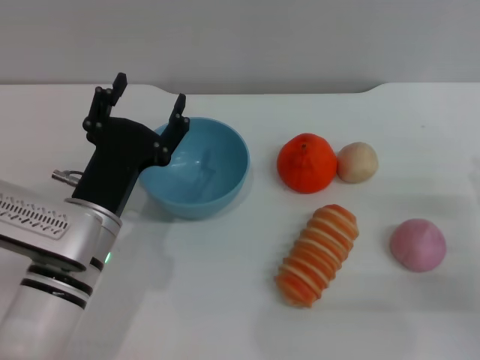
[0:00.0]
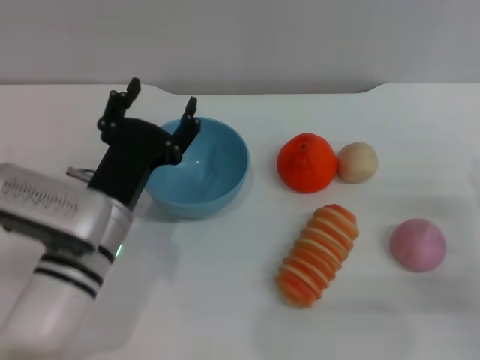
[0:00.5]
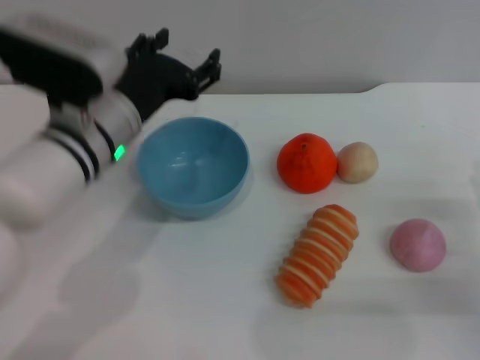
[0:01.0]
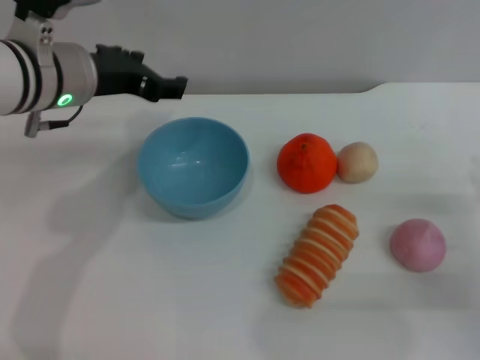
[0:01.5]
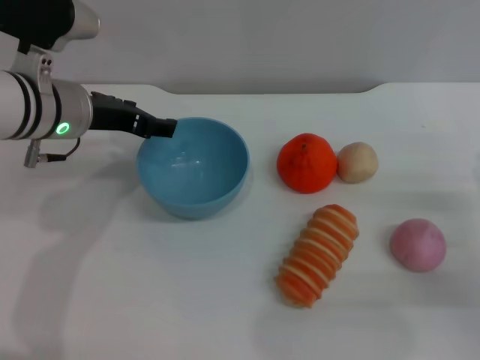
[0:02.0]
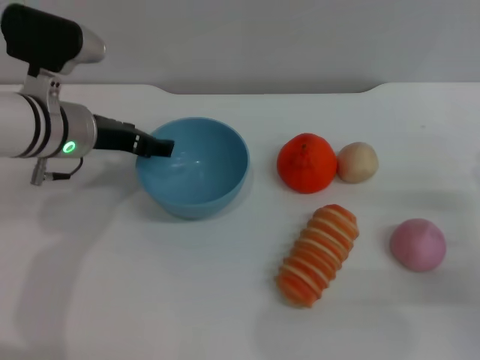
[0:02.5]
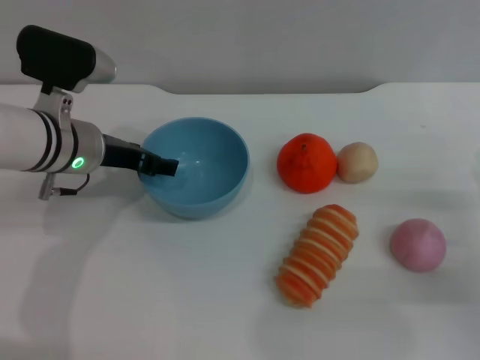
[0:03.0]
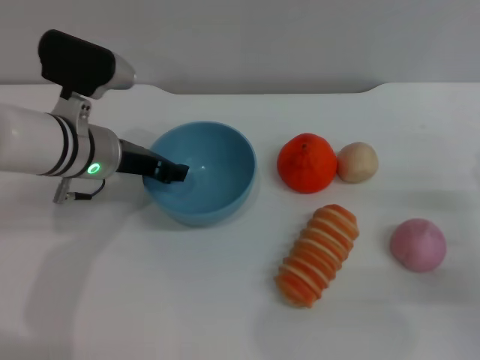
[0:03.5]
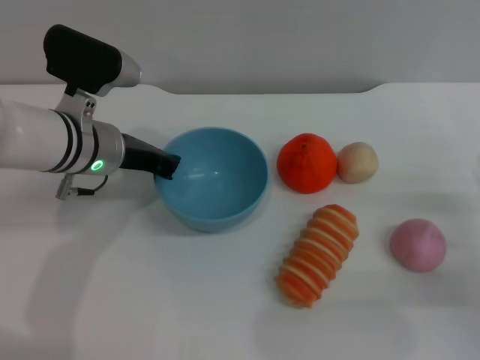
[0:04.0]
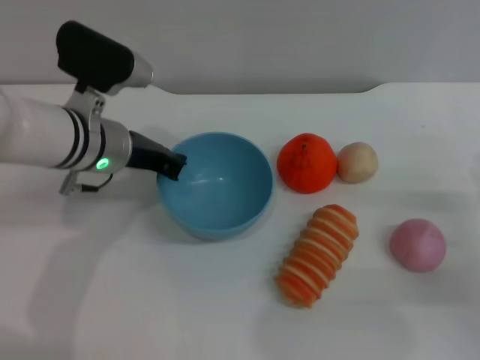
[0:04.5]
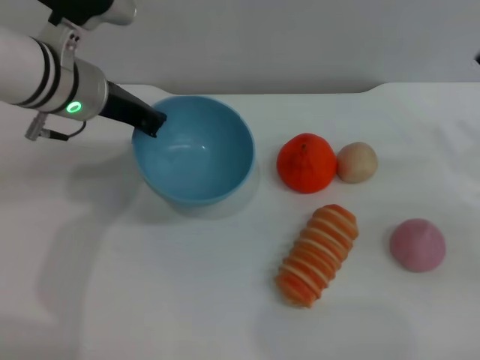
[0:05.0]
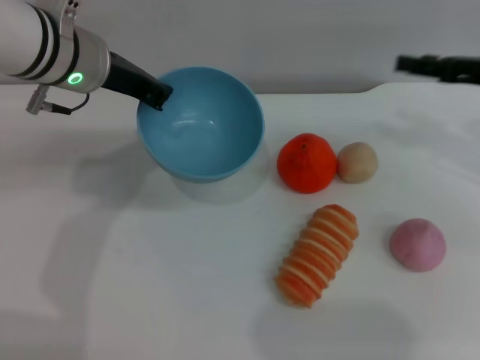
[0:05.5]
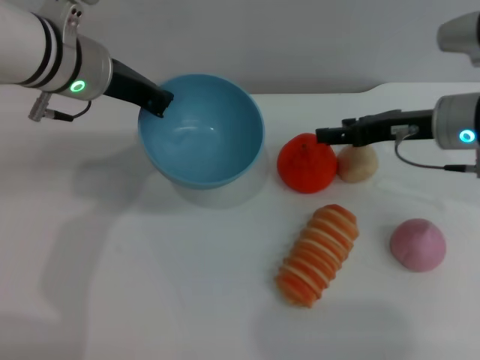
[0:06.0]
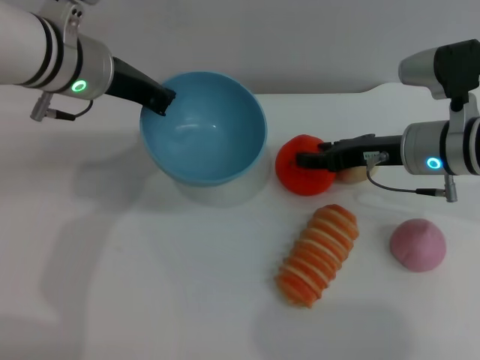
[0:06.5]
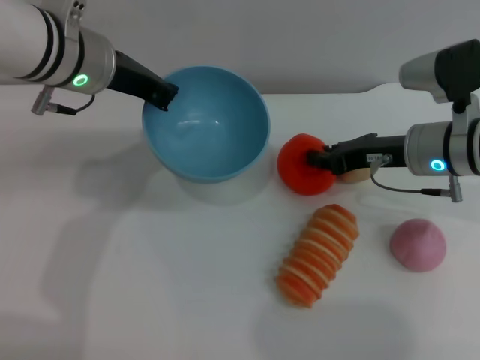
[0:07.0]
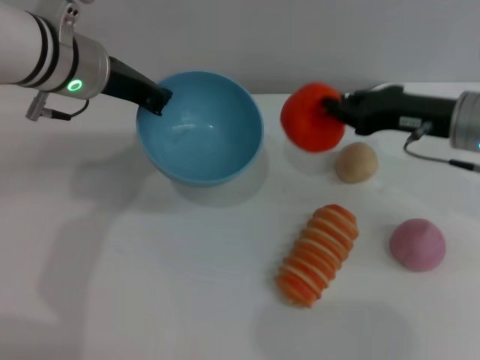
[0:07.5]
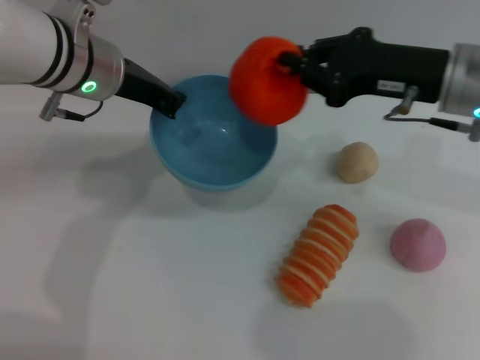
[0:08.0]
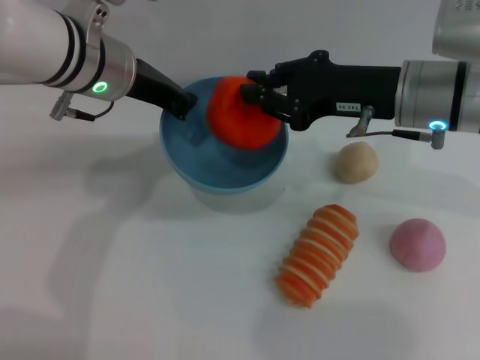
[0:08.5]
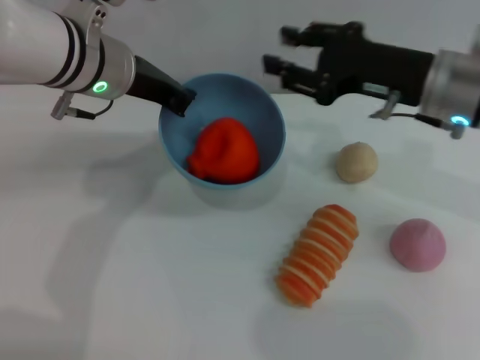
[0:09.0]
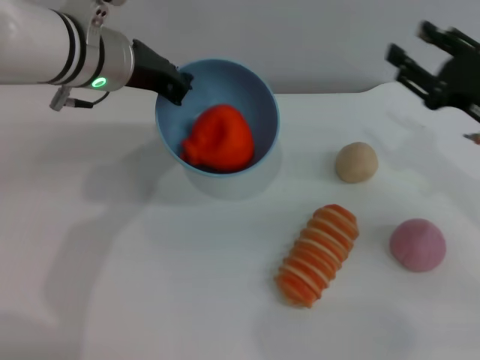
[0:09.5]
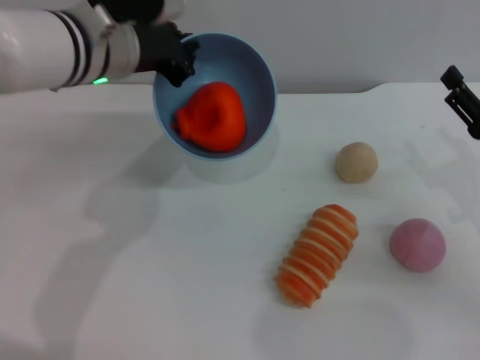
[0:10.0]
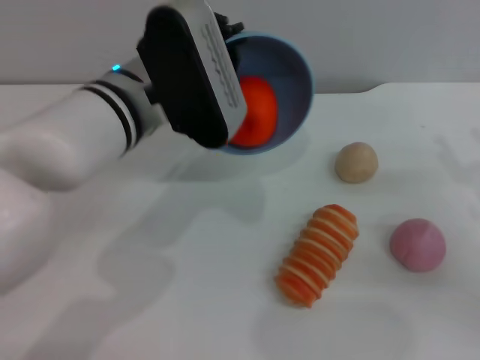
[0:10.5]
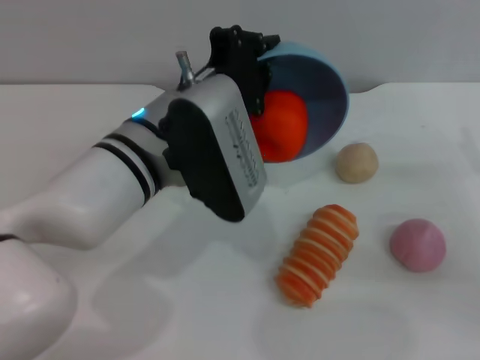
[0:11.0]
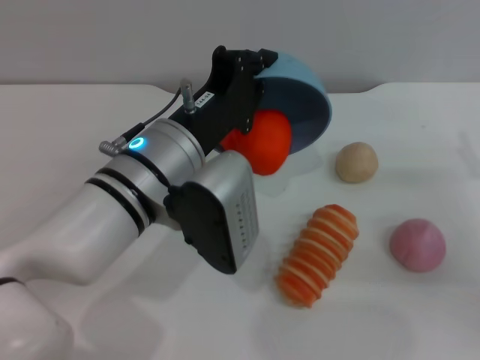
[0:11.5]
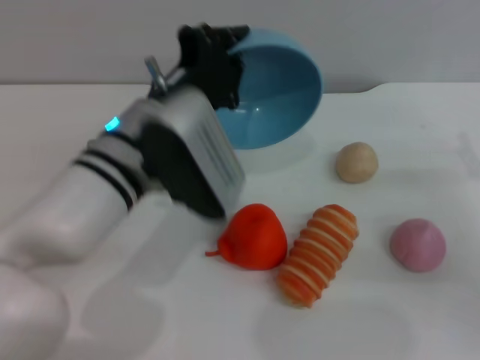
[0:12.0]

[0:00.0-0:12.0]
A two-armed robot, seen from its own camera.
Task of the whole recording: put the orange into the blue bowl and pour it out repeatedly.
Step, 0:00.0 to 0:05.0: Pick up the bowl with the left gripper.
Step, 0:05.5 to 0:07.0: Pick up the orange with the right gripper.
Step, 0:07.5 to 0:08.5: Place the orange into the bowl.
0:00.0 to 0:02.0: The left gripper goes roughly 15 cm forward and upward.
0:02.0 to 0:04.0: The left gripper closes its fingers.
0:04.0 to 0:06.0: The left gripper travels upward by about 10 cm, and closes its fingers, while the right gripper moves forward, to the left and upward, about 20 cm.
0:06.0 to 0:08.0: The right gripper moves upward, some 5 cm, and closes.
0:08.0 to 0:10.0: The right gripper moves downward, to the right and backward, roughly 15 cm, and opens up.
0:10.0 to 0:12.0: The left gripper shifts approximately 10 cm backward and downward.

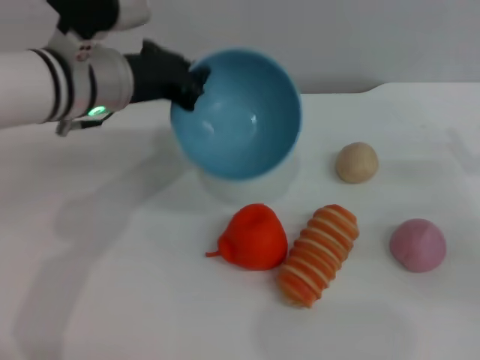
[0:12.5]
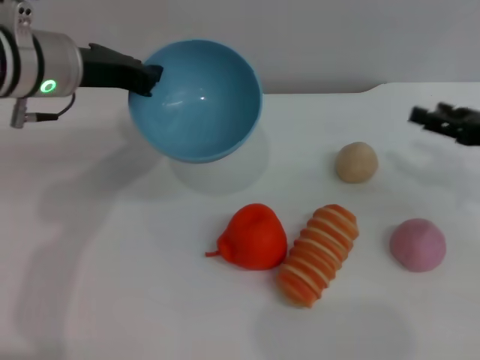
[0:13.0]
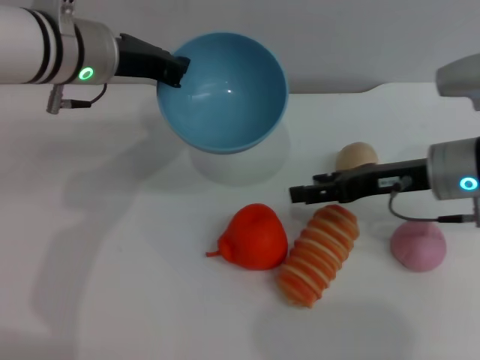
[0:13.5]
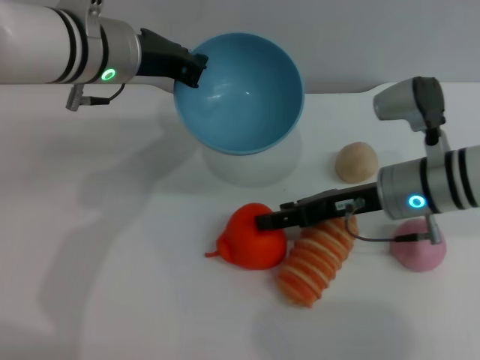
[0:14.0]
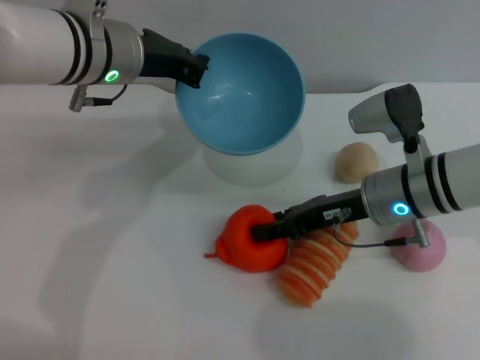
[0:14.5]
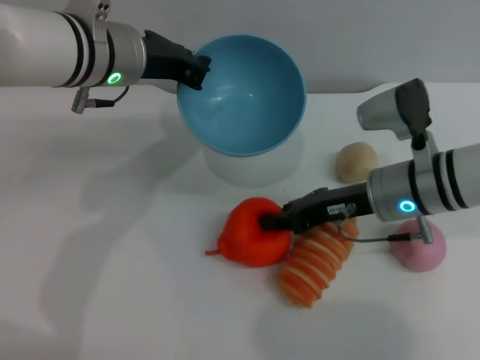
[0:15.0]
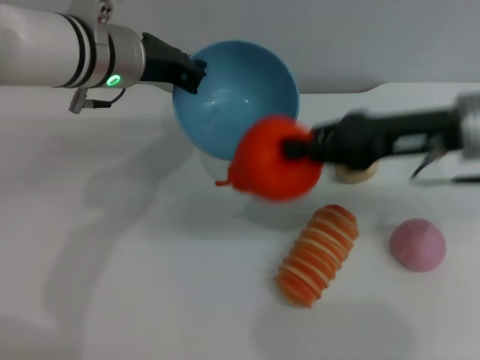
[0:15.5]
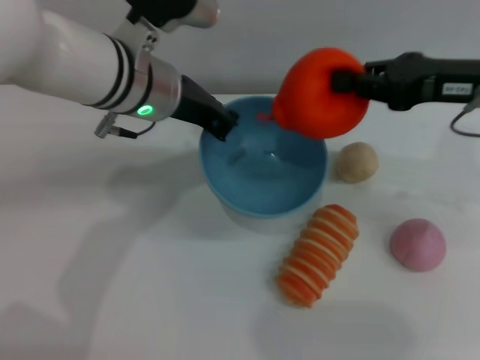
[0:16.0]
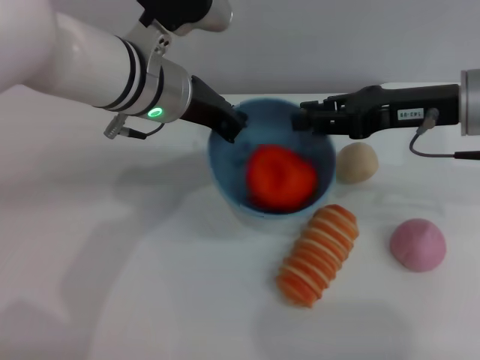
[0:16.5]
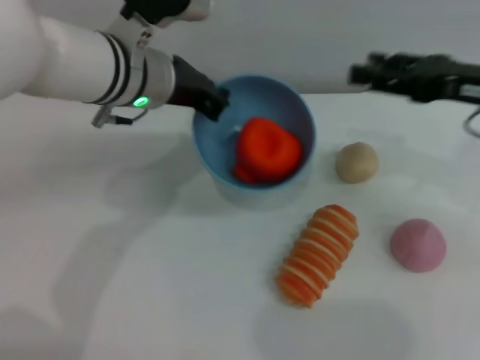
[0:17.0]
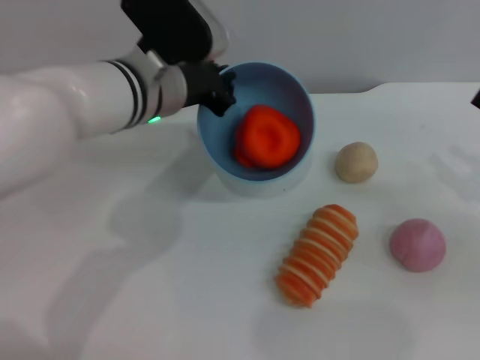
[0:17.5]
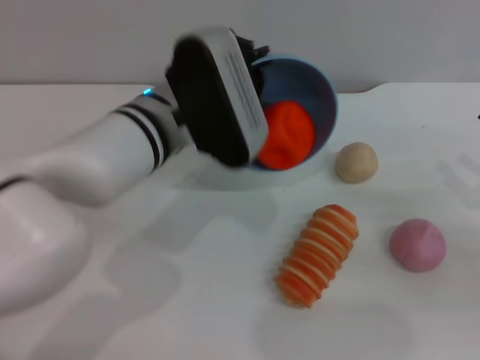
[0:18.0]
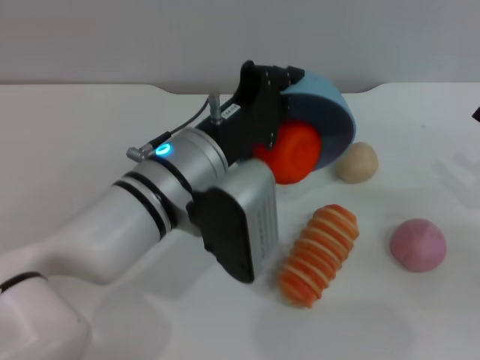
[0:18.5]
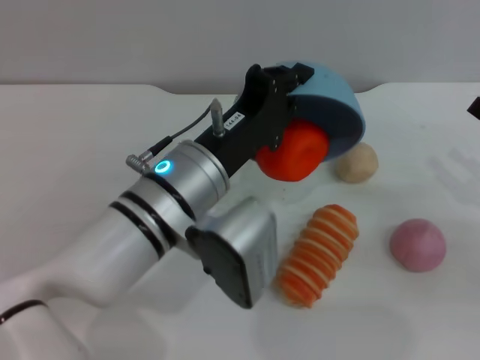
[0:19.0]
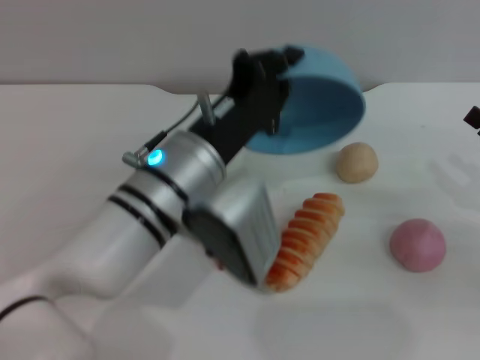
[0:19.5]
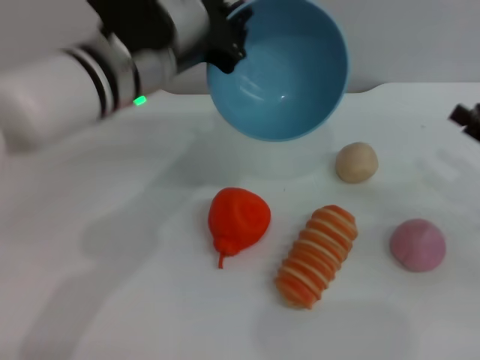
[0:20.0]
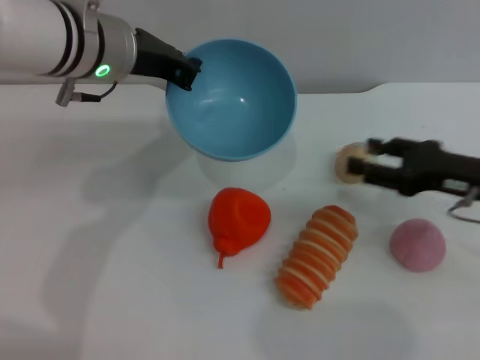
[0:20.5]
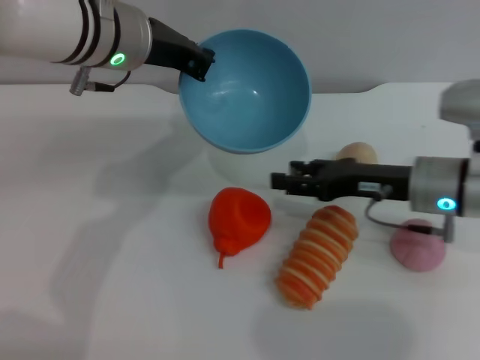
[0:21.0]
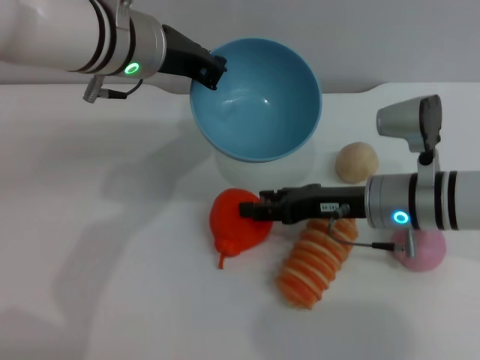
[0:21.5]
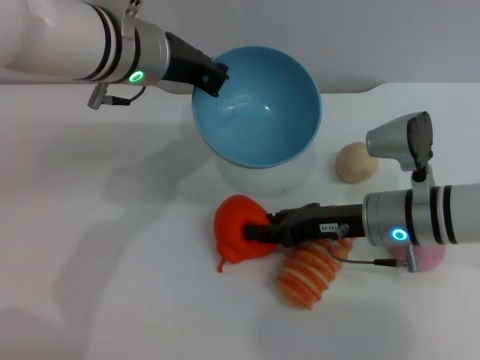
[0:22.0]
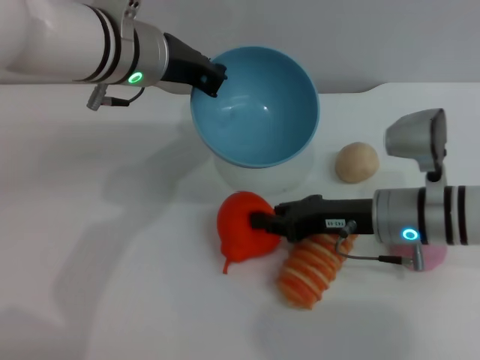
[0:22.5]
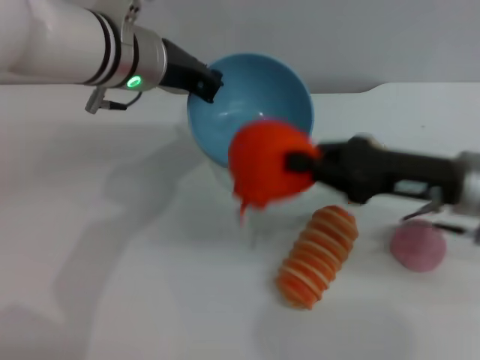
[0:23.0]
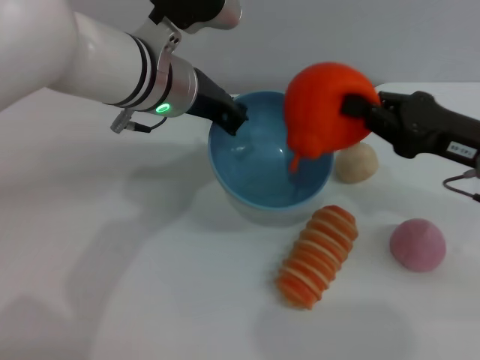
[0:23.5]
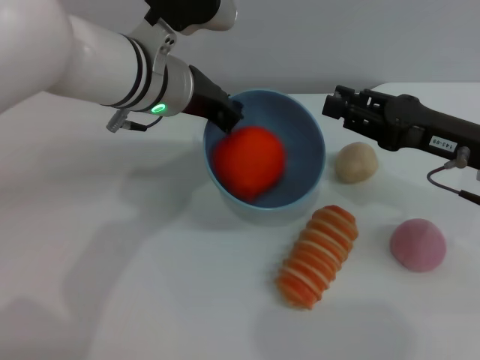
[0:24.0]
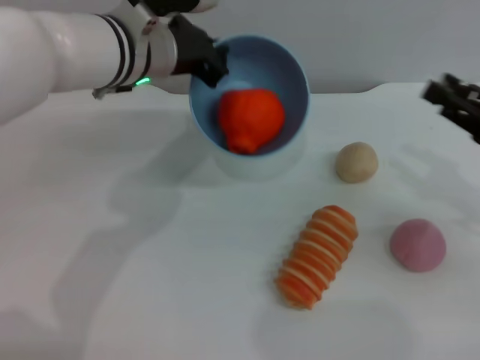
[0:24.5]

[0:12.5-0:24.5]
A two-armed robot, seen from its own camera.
Task of the whole recording: put the orange into the blue bowl and pour it out repeatedly.
Step, 0:12.5 to 0:15.0: Pick up the orange with the right gripper.
Step, 0:15.5 to 0:16.5: Place the orange into the bowl.
Step, 0:17.5 to 0:19.5: Pour the orange out of the bowl.
Step, 0:20.0 to 0:22.5: Pick up the orange with the right gripper.
Step, 0:23.0 to 0:24.0: Place the orange into the bowl.
0:12.5 to 0:14.5: The right gripper heads to the left, covering some 20 cm.
0:14.5 to 0:16.5: The right gripper goes roughly 10 cm upward and to the right, and closes up.
0:16.5 to 0:18.5: The right gripper moves to the right, backward and downward, some 20 cm, and opens up; the left gripper travels backward and downward by about 10 cm.
0:18.5 to 0:20.5: The right gripper goes approximately 10 cm to the left and forward, while the left gripper goes approximately 15 cm forward, upward and to the left.
0:20.5 to 0:22.5: The right gripper moves to the left, about 10 cm, and closes.
0:22.5 to 0:24.5: The right gripper travels to the right by about 15 cm, and opens.

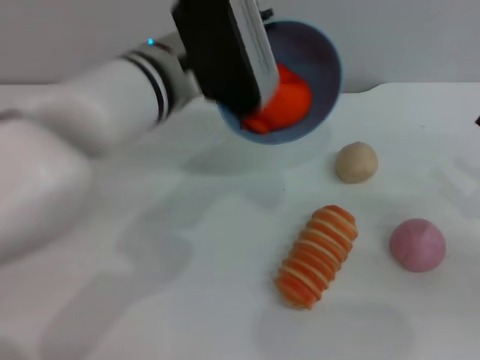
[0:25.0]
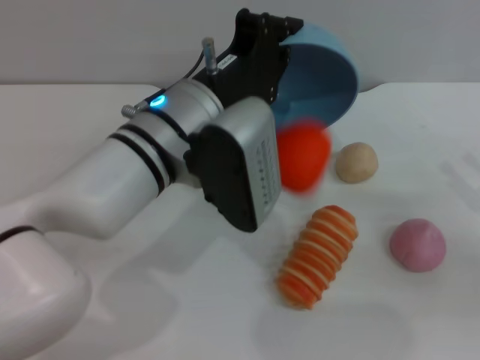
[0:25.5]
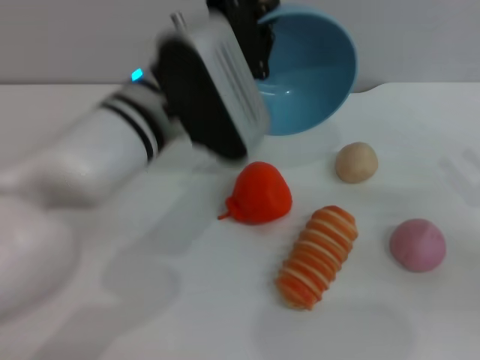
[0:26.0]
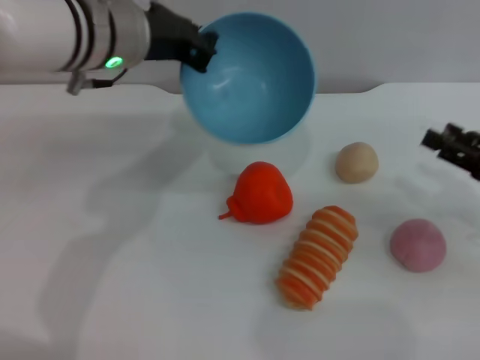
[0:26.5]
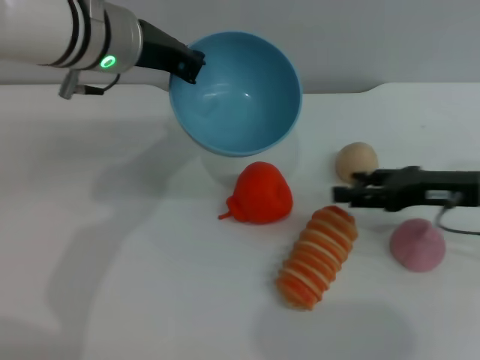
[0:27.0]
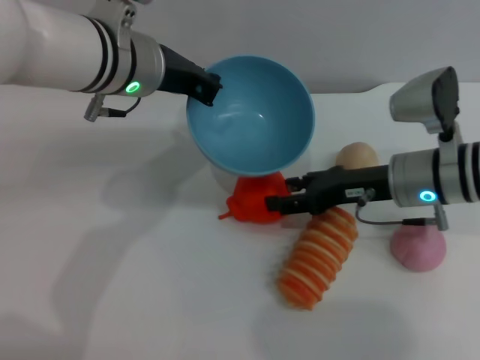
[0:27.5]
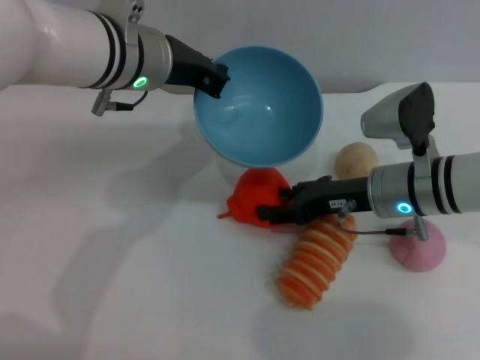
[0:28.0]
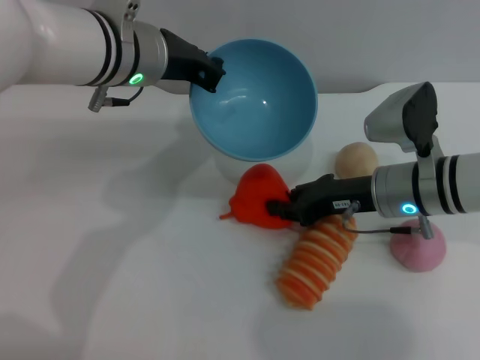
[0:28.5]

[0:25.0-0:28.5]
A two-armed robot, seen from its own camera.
Task of the whole recording: put the orange into the blue bowl and pour it out repeatedly.
0:25.0 to 0:27.0: The right gripper moves to the left and forward, some 10 cm, while the left gripper travels to the left by some 5 cm.
0:27.0 to 0:28.5: The right gripper is displaced to the left by about 10 cm, and closes its fingers.
